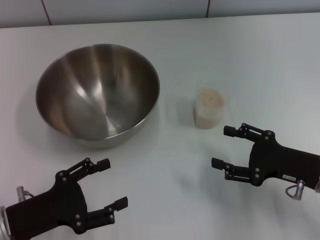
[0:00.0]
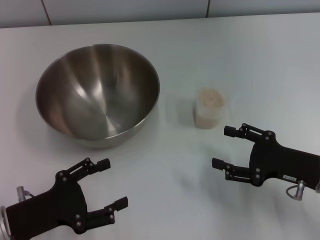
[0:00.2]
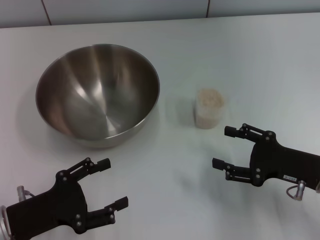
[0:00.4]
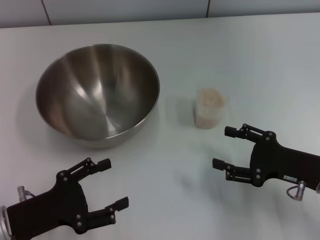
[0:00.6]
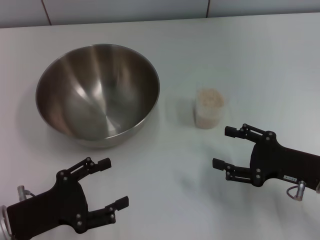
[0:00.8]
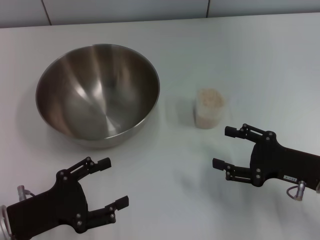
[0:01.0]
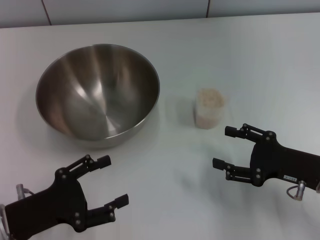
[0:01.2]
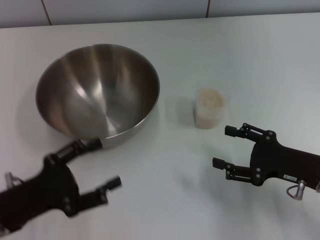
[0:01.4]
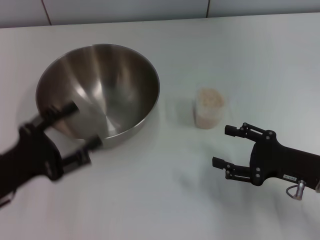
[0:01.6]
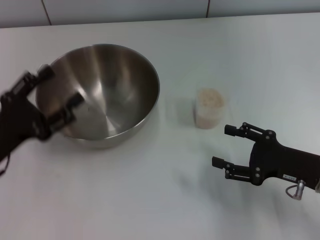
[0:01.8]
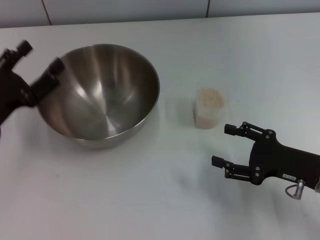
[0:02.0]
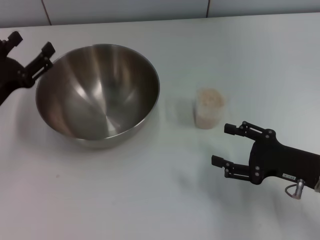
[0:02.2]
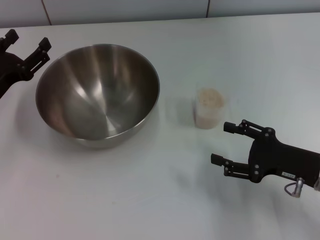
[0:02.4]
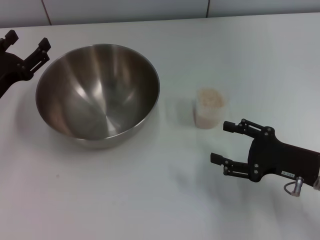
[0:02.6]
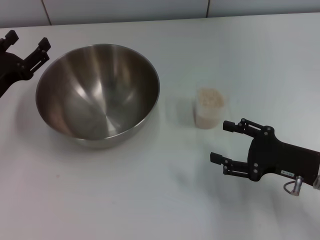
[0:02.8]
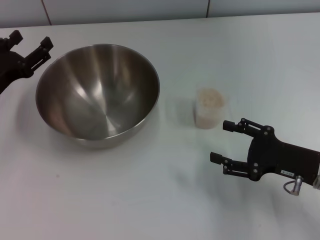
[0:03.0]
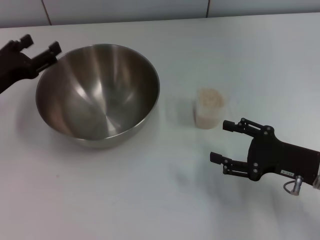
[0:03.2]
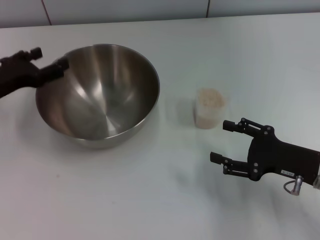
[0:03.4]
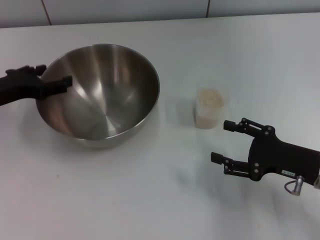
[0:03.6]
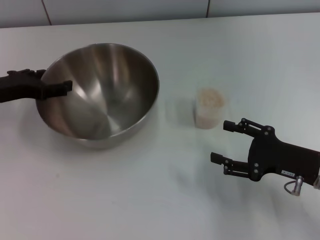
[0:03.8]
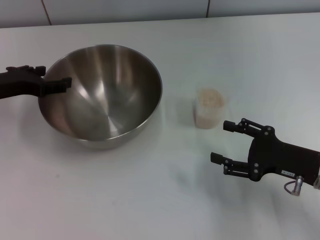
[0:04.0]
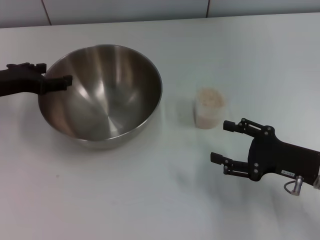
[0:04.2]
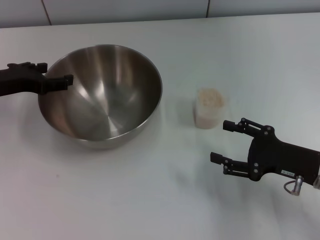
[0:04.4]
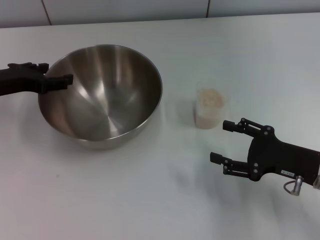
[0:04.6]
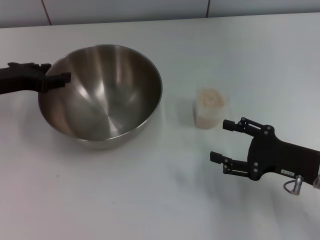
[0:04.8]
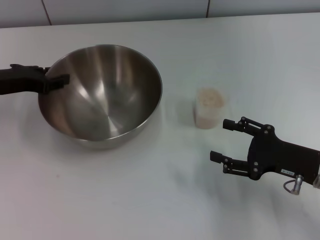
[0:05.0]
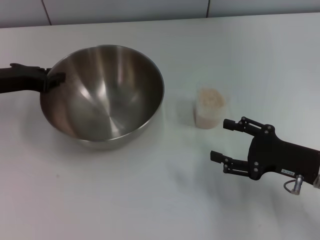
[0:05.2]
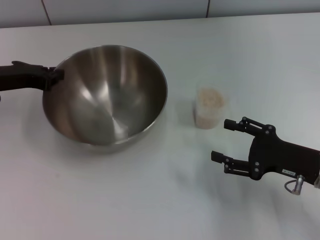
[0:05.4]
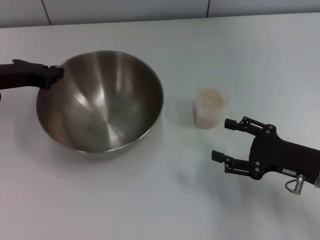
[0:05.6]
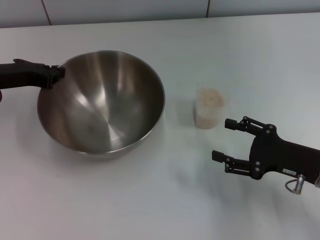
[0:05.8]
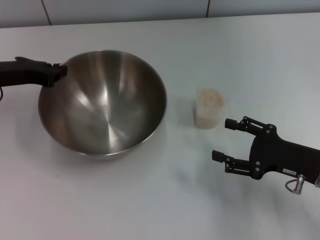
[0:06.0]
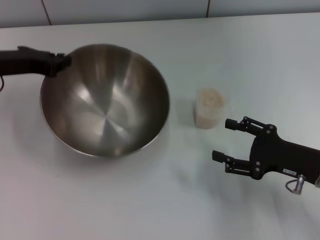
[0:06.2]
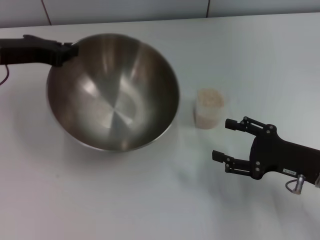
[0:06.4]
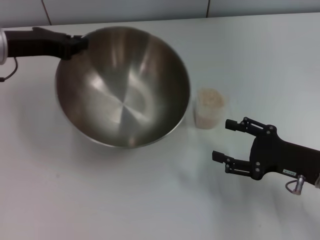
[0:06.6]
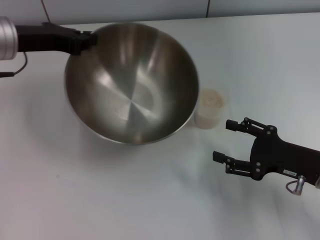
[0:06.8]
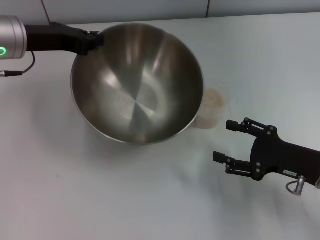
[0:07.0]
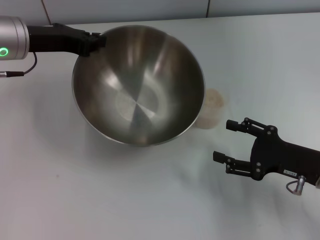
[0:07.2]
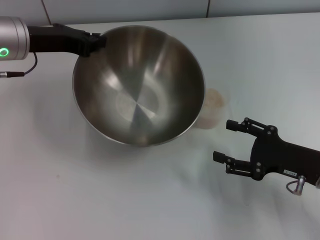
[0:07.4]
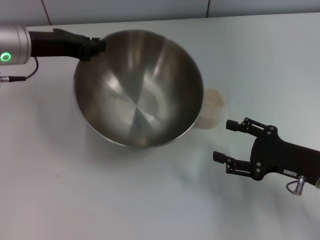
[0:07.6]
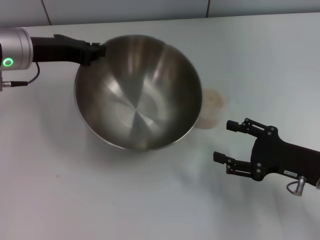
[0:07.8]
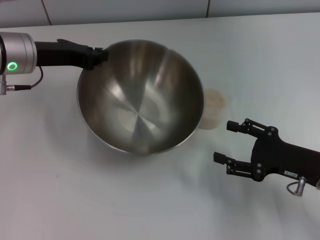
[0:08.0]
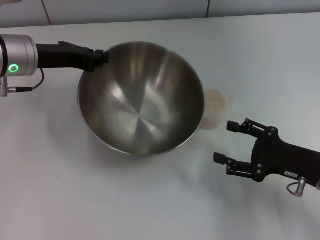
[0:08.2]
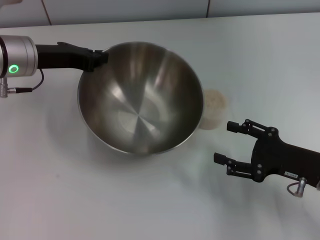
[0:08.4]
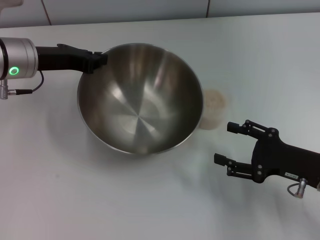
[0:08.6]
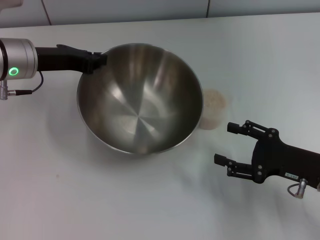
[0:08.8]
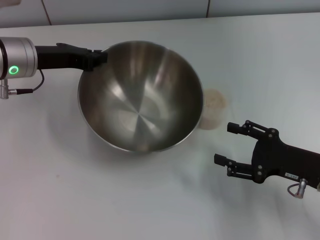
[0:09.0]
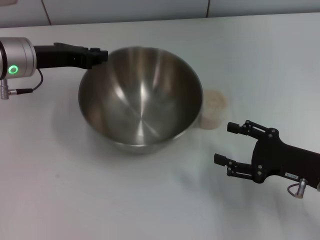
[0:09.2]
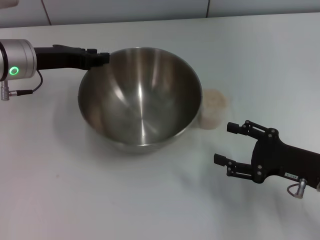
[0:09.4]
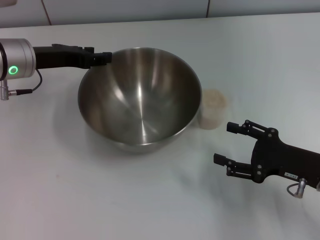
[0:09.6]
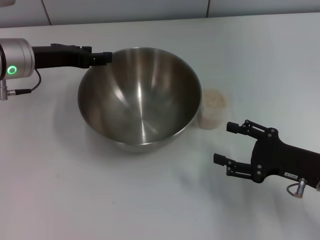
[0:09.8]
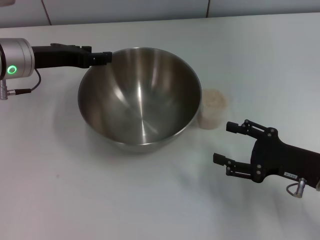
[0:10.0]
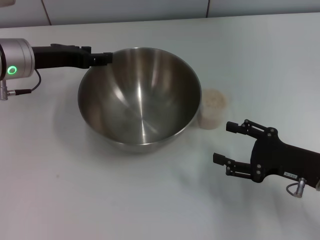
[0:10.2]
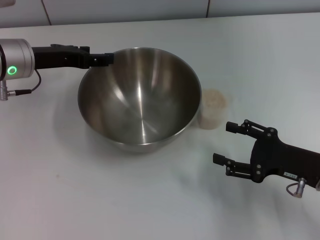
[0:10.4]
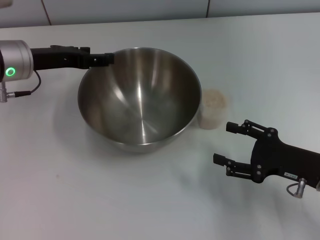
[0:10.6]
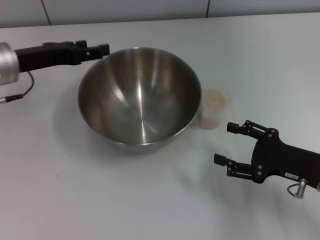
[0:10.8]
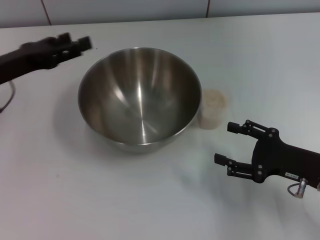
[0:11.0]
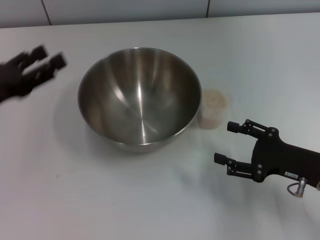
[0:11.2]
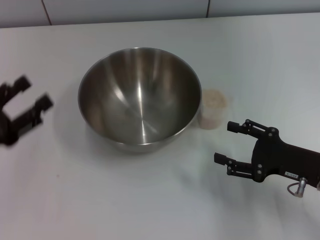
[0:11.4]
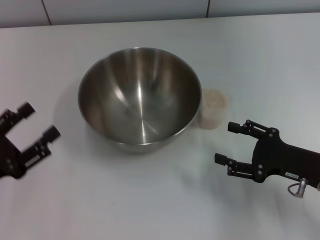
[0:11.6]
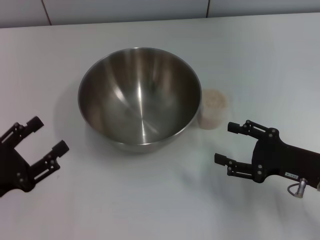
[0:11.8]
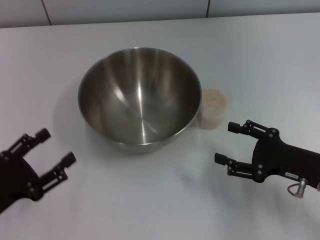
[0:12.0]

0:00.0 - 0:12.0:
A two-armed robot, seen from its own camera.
Task of the whole recording: Place the bowl in the middle of the table with one hand and pour the rice from the grain cup into it with the other hand.
Step, 0:00.0 - 0:05.6: Pick up the bowl with the left gripper.
Step, 0:05.8 - 0:10.8: Place the bowl in the center of view with the left gripper.
0:00.0 - 0:01.6: The grippers make only small movements.
0:01.6 - 0:03.0: The left gripper shifts roughly 10 cm forward.
0:03.0 - 0:04.4: The left gripper changes place by approximately 5 cm.
0:04.4 - 0:06.0: The left gripper closes.
0:06.0 - 0:07.6: The left gripper travels to the right by some 5 cm.
0:07.6 - 0:09.0: The grippers stay close to where they were, moving slightly.
0:09.0 - 0:10.4: The left gripper opens its fingers.
0:10.4 - 0:12.0: The left gripper travels backward and downward by about 25 cm.

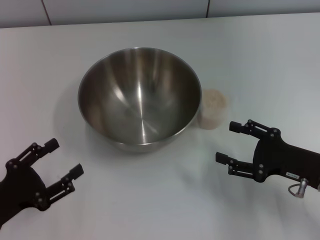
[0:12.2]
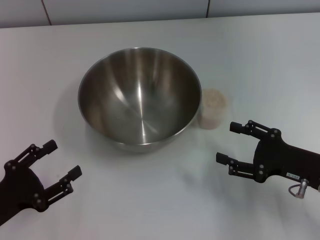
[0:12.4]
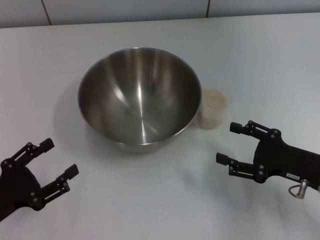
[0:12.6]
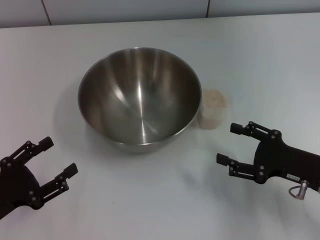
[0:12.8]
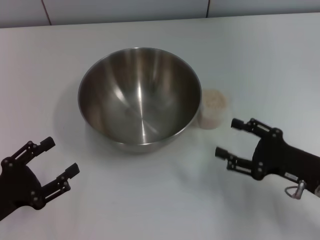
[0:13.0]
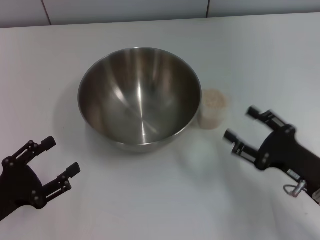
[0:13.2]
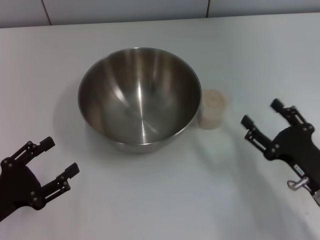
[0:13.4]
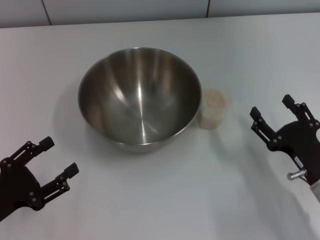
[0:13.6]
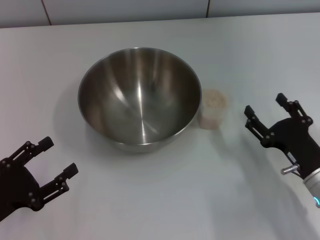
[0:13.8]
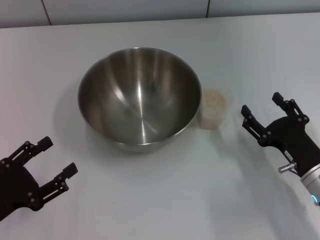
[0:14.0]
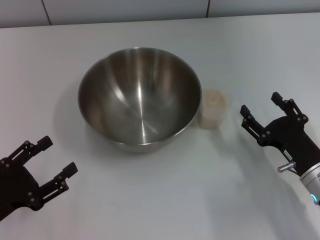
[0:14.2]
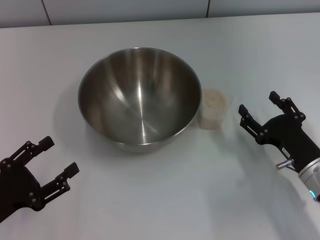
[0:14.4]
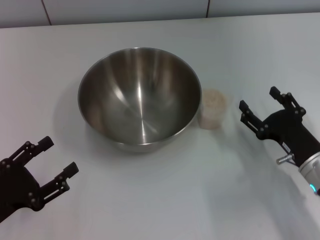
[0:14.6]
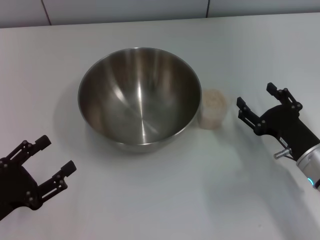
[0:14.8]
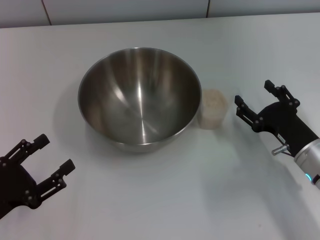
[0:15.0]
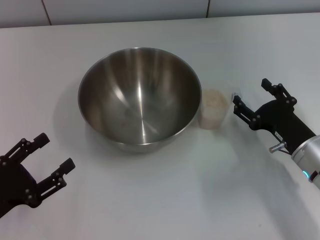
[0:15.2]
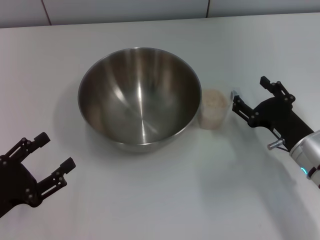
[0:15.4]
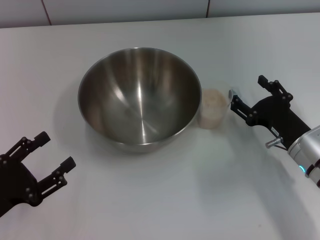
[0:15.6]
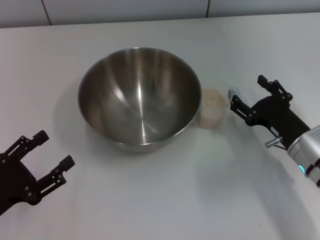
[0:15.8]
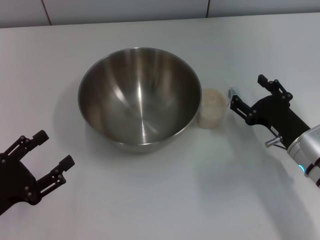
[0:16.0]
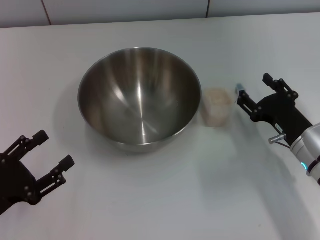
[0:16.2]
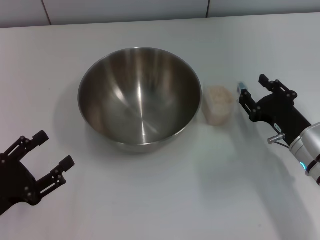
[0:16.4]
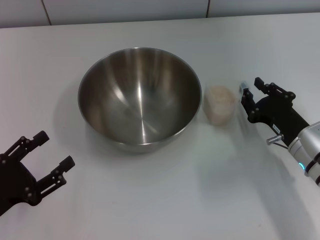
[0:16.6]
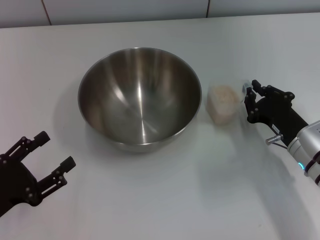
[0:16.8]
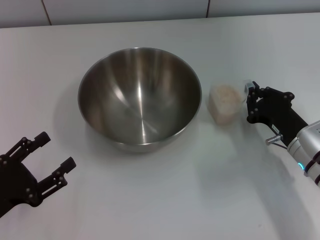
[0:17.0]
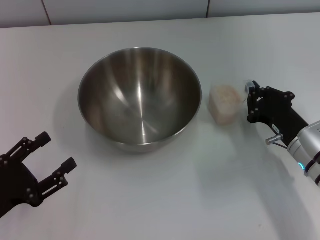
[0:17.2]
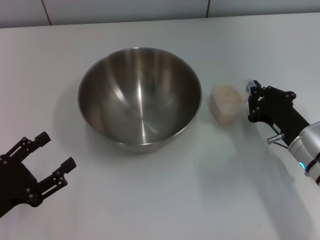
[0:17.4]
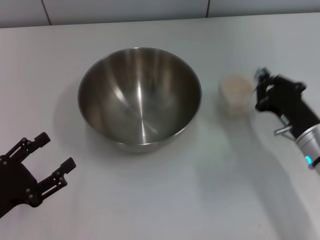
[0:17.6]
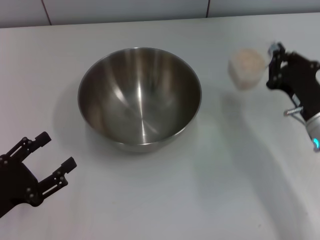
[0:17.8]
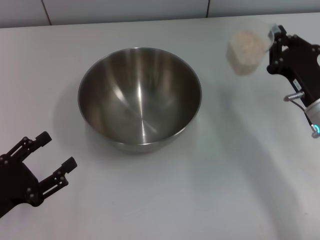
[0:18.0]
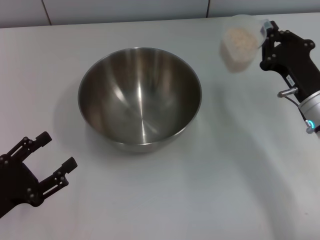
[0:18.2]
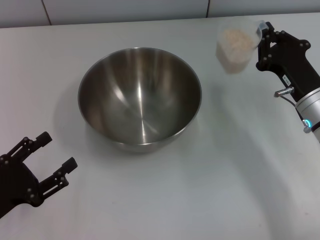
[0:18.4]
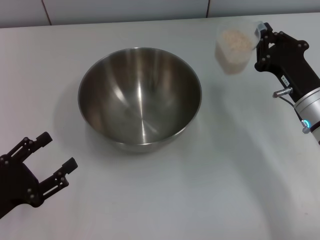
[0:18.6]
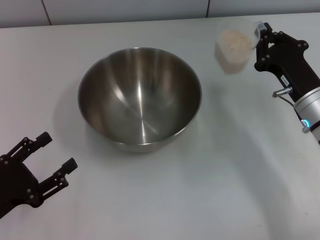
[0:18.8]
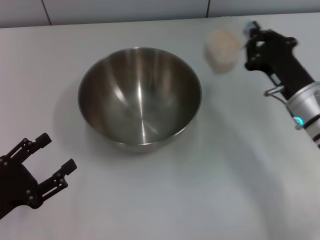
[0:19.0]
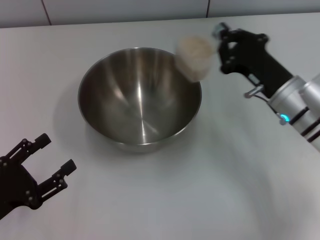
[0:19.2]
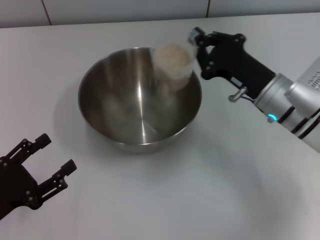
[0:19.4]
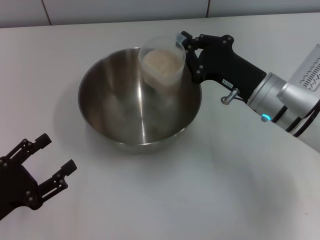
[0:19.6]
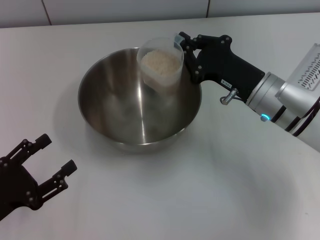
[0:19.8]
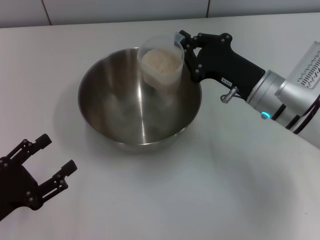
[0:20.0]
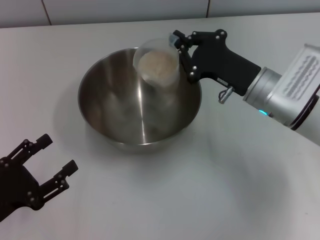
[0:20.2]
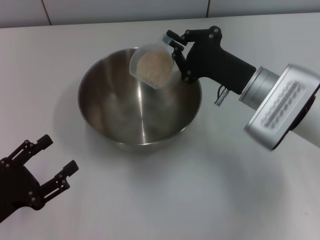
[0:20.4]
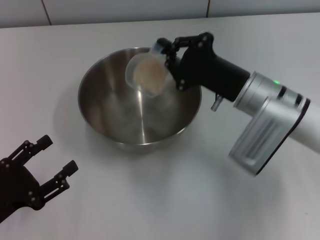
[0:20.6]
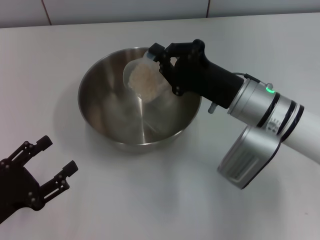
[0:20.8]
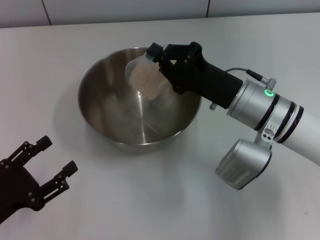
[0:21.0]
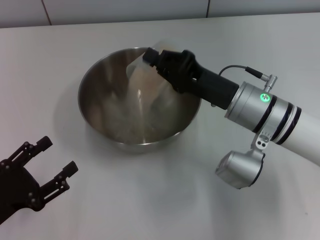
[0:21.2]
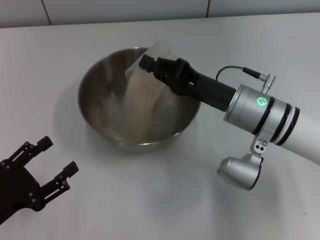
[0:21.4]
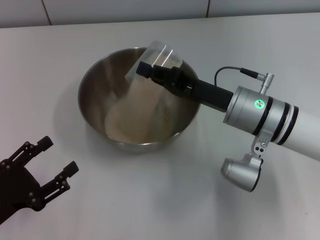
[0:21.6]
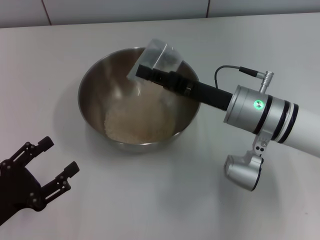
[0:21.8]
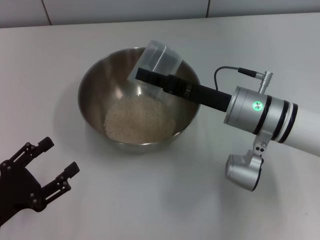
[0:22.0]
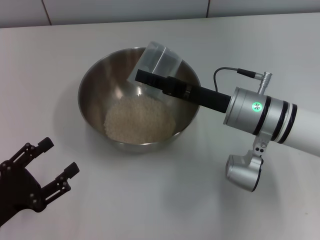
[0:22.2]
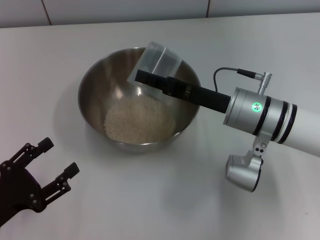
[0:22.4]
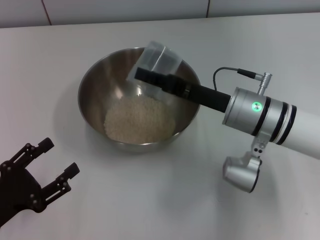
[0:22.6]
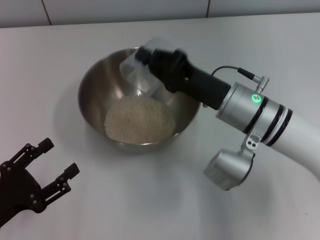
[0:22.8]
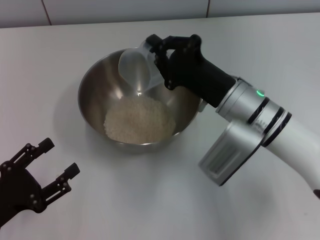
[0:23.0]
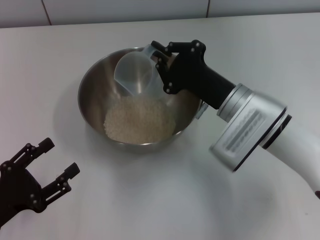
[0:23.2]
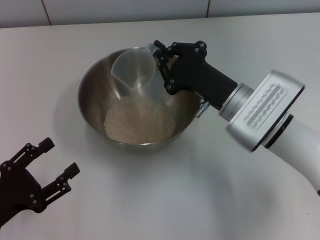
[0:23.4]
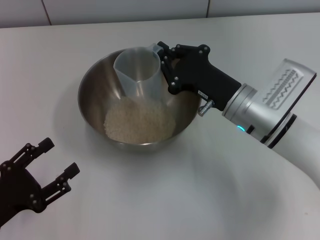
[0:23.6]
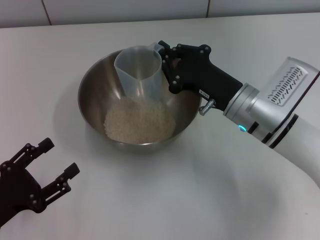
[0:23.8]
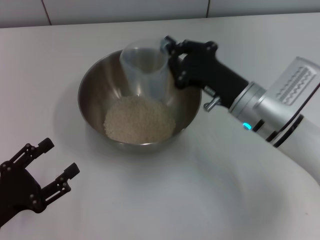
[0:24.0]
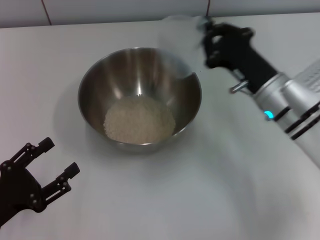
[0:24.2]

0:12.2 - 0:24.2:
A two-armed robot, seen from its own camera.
Task of the whole recording: Place the bowl in the middle of the table with one hand and pour the rice from the grain cup into it with the other hand.
Step, 0:12.2 - 0:18.0: Pick up the cup with rice in it with the right gripper.
0:13.8 - 0:15.2: The grippers stay close to where they were, moving slightly.
0:15.2 - 0:16.6: The right gripper closes.
0:16.6 - 0:18.2: The right gripper ends up roughly 5 cm from where it was, and closes.
0:18.2 - 0:19.8: The right gripper moves to the left, roughly 5 cm.
